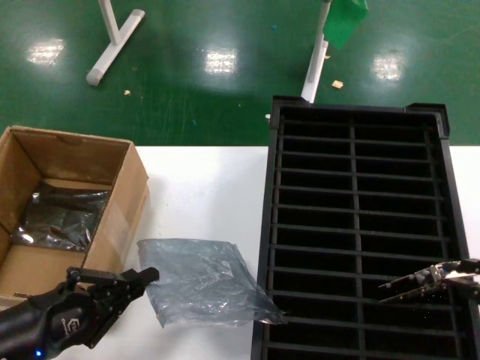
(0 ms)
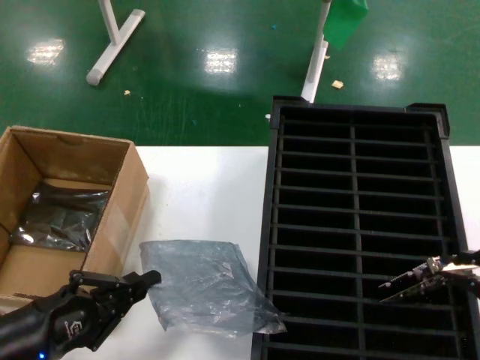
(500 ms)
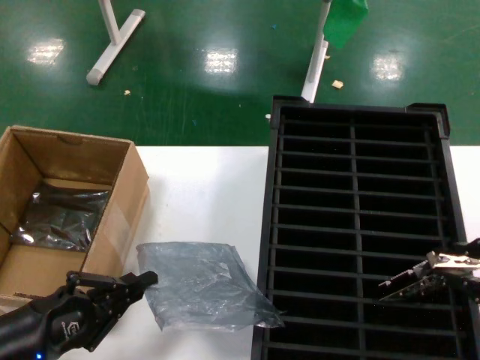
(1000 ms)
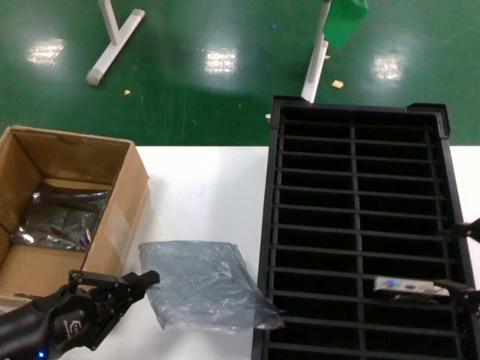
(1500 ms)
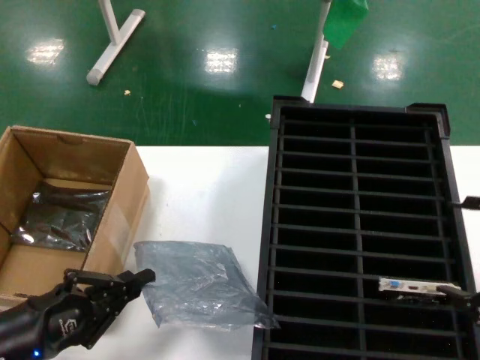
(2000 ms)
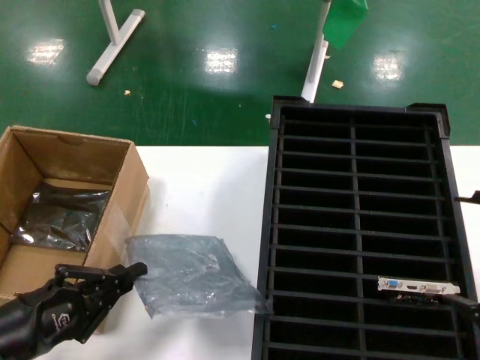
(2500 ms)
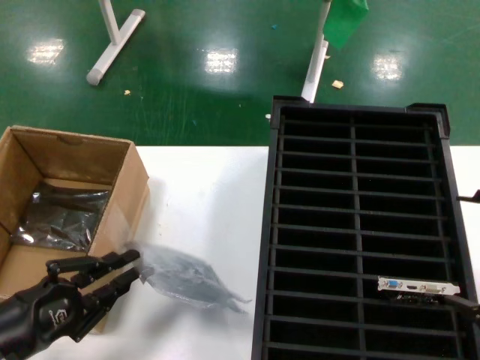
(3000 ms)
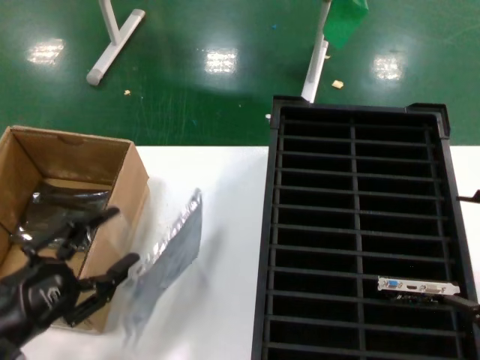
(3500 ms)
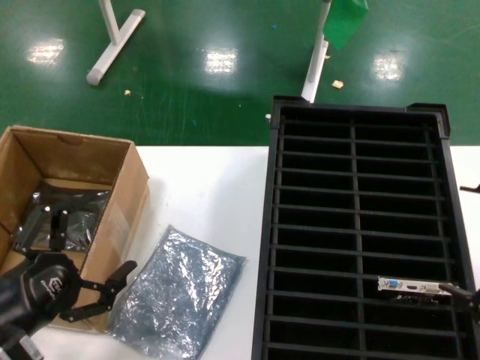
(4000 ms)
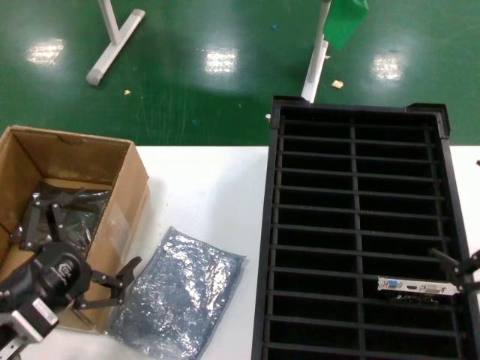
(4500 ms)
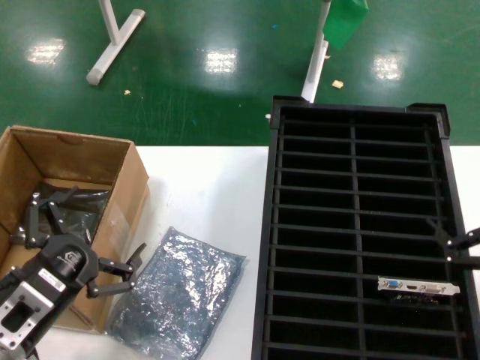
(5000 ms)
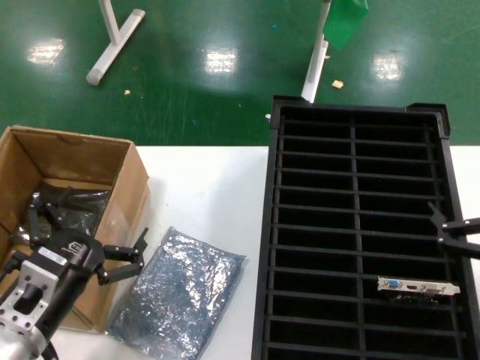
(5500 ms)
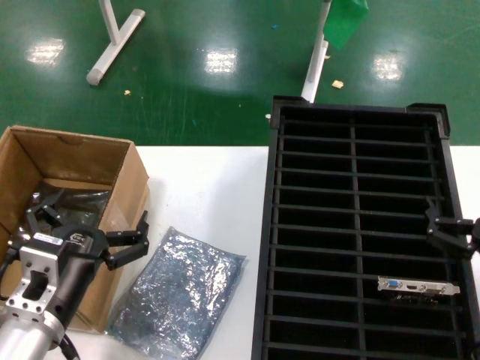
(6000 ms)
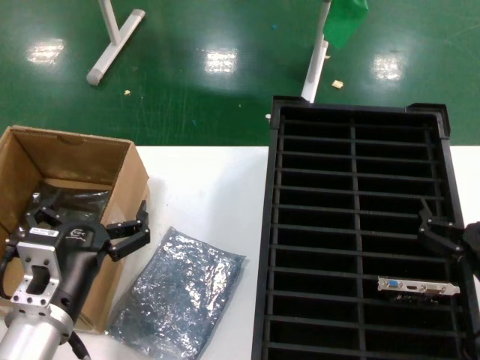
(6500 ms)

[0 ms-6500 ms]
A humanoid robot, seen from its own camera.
Task of the whole recording: take out graphics card from box remove packaging put into black container.
Step, 2000 ms to 3500 ms: Place the down the bag.
0 ms to 2000 ms: The hands stay close to where they were, moving slightly.
4500 ms to 6500 ms: The right hand heads downward and to the left, covering about 15 cm, while the left hand moves to the right, approximately 10 cm.

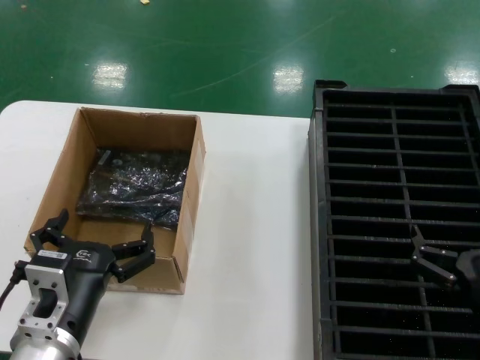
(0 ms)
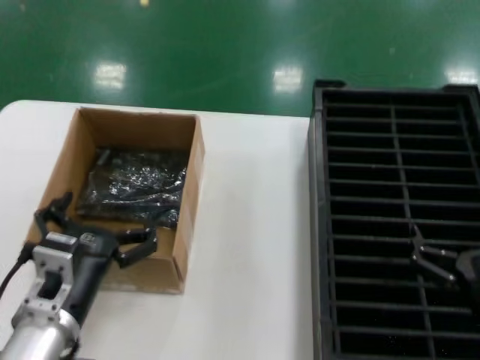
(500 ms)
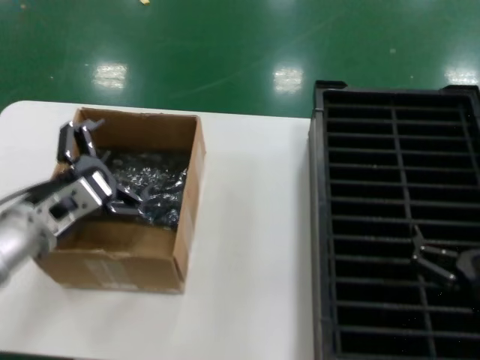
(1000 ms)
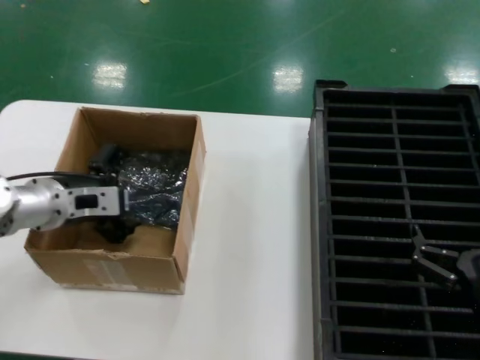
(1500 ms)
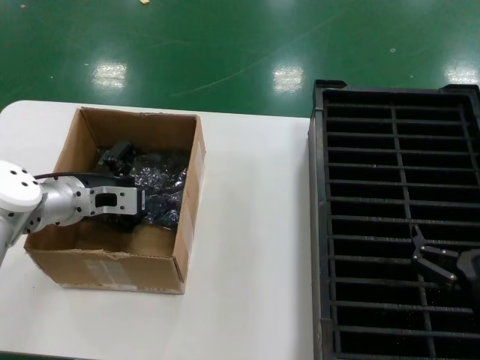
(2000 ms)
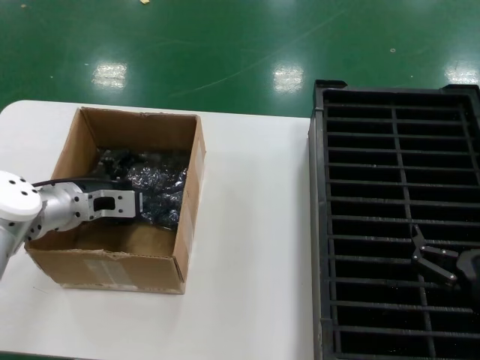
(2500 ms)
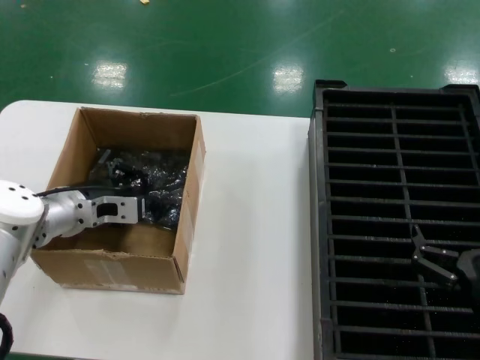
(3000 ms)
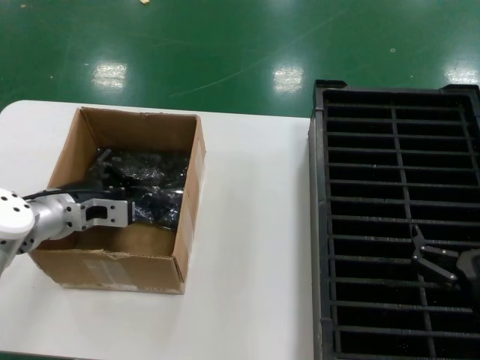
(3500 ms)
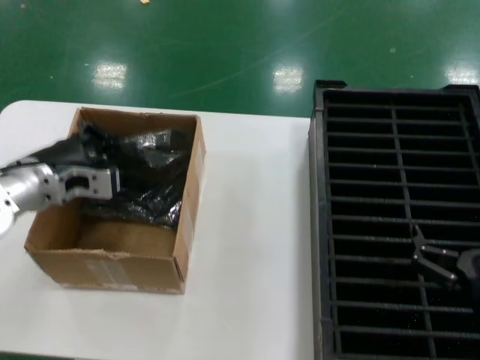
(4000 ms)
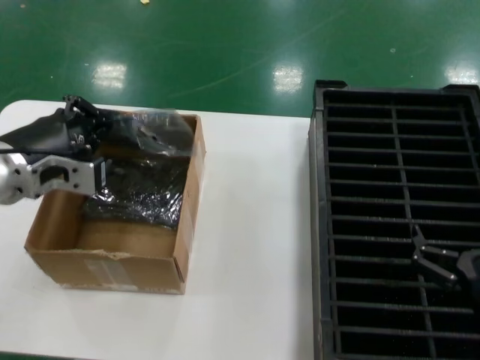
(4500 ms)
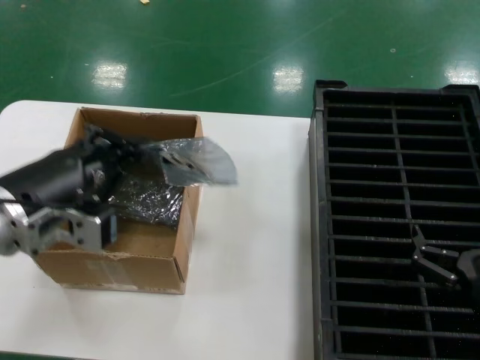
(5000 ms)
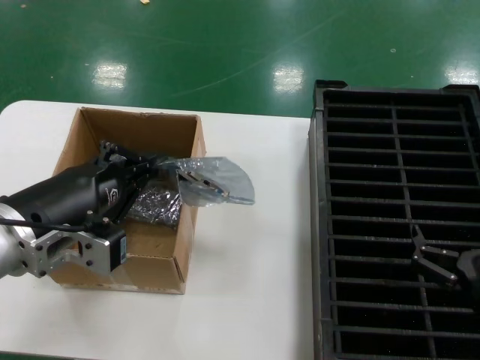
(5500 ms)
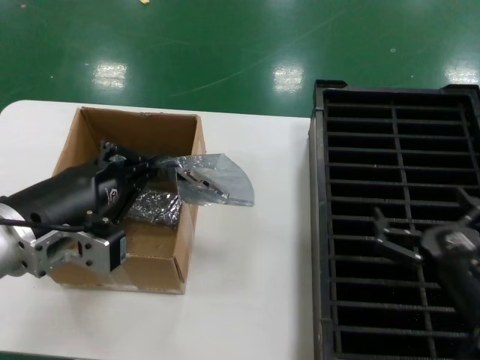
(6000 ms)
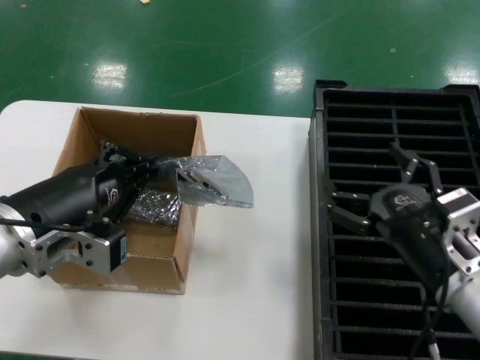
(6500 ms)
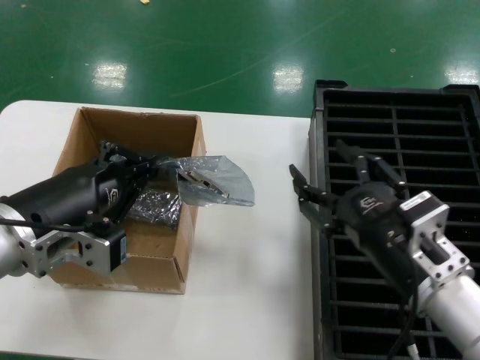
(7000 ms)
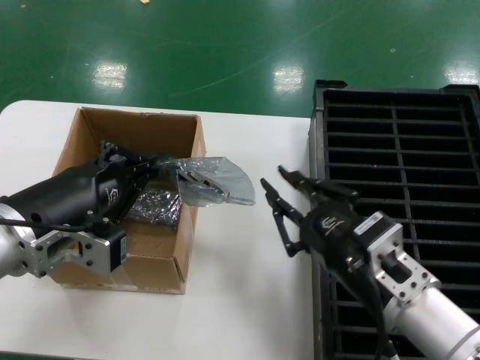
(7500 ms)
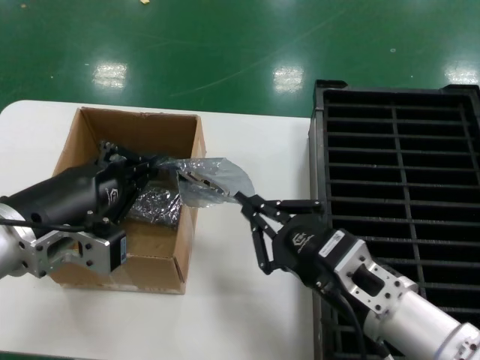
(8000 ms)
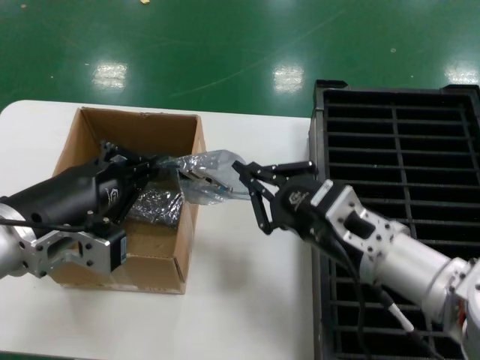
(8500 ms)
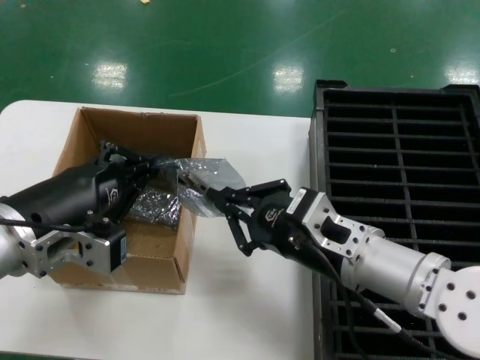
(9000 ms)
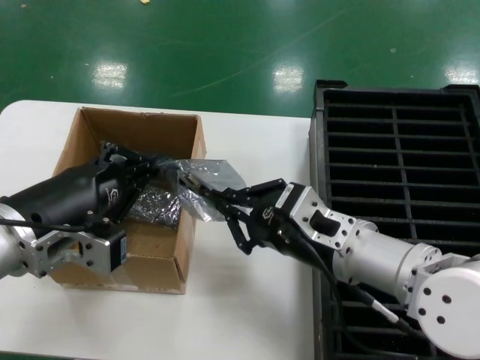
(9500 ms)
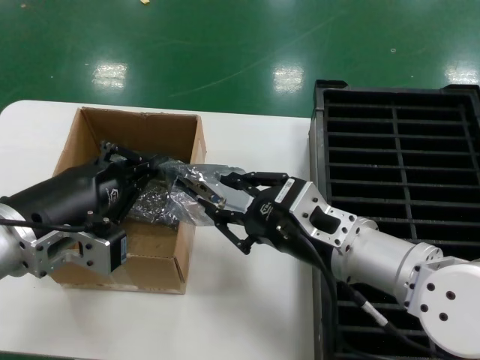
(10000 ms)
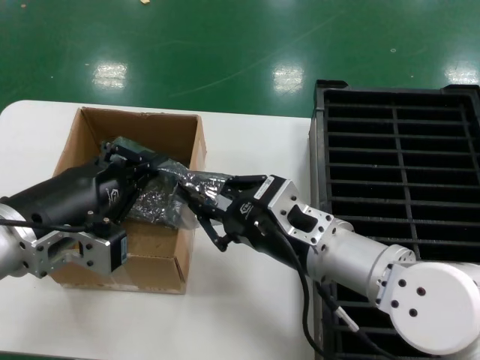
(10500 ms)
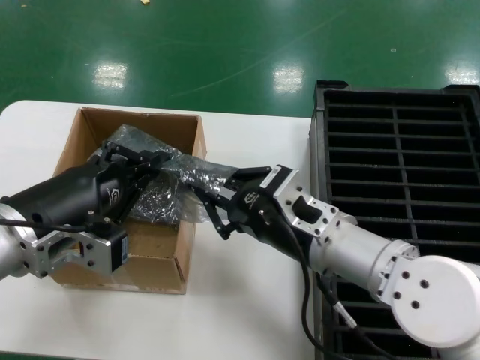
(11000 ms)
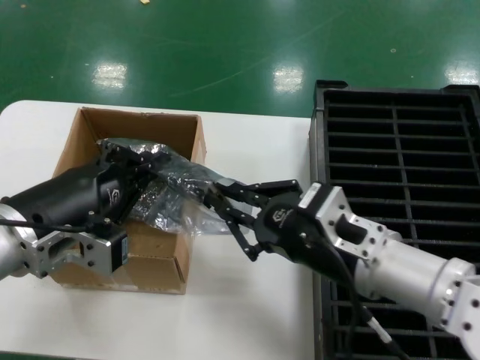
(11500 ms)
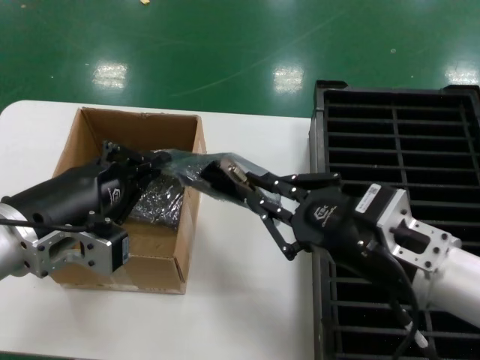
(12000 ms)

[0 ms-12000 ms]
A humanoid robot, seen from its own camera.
Task of the whole recording: take out graphics card from box remove packaging put into black container.
Step, 0 ms to 3000 ms: Grasp the bag.
Step, 3500 ms to 5500 ms: Lift the bag.
0 ms to 2000 ms: The left hand is displaced forward and upward by approximately 25 cm.
2000 ms to 4000 ms: The hands make only small movements.
4000 ms to 6000 ms: The left hand heads backward, covering about 15 cm.
6000 ms to 8000 ms: The right hand heads to the left, covering some 10 cm.
8000 ms to 10000 ms: The right hand shifts approximately 5 cm forward.
10000 ms to 12000 ms: The right hand moves backward and to the right, about 10 cm.

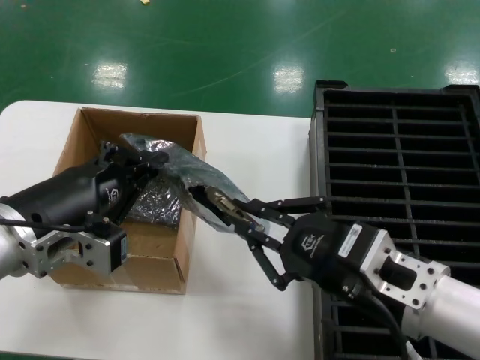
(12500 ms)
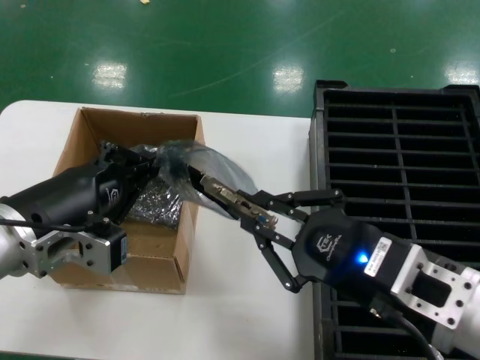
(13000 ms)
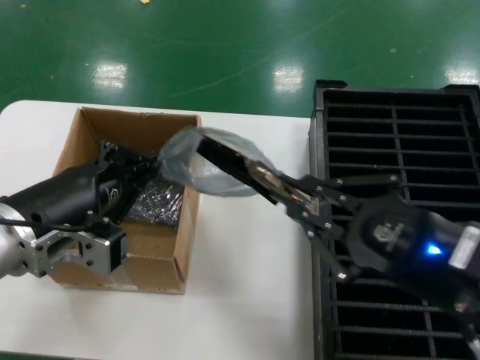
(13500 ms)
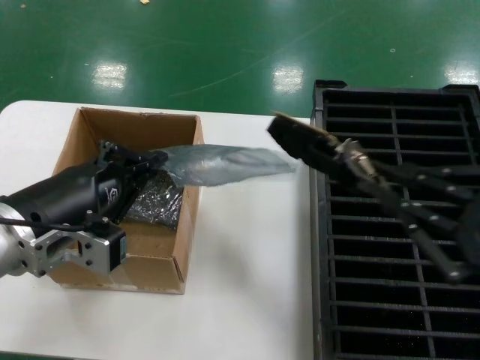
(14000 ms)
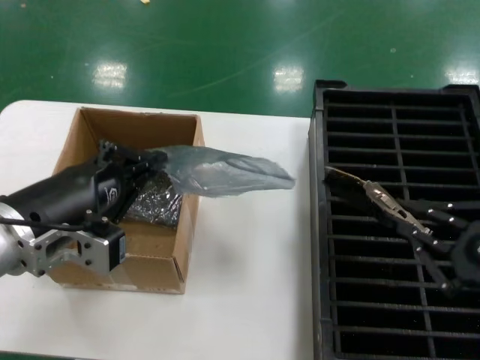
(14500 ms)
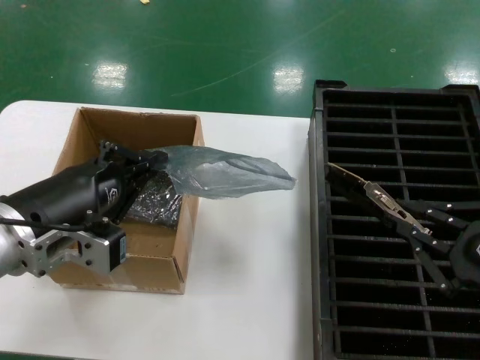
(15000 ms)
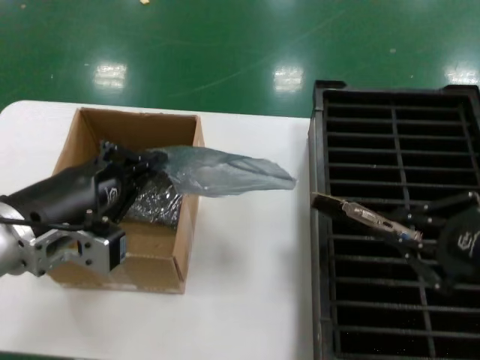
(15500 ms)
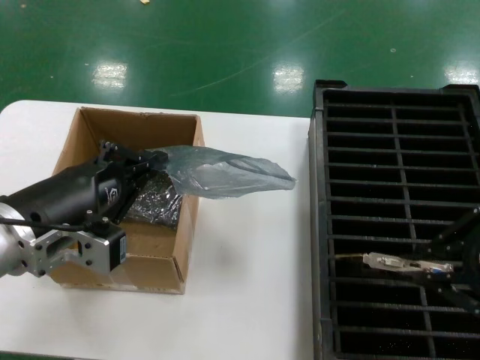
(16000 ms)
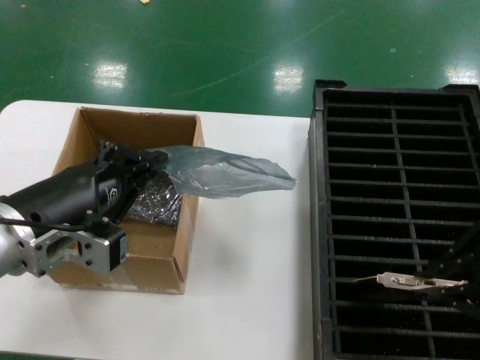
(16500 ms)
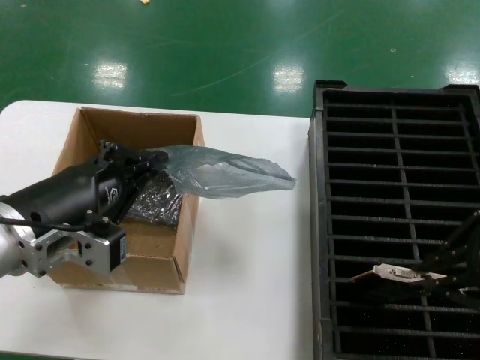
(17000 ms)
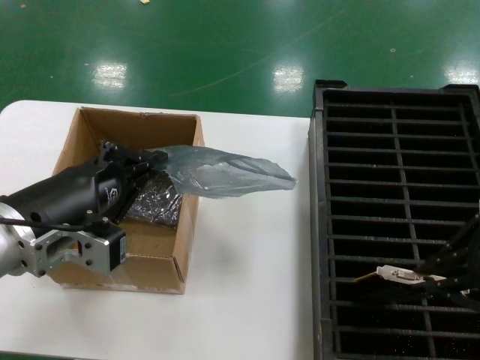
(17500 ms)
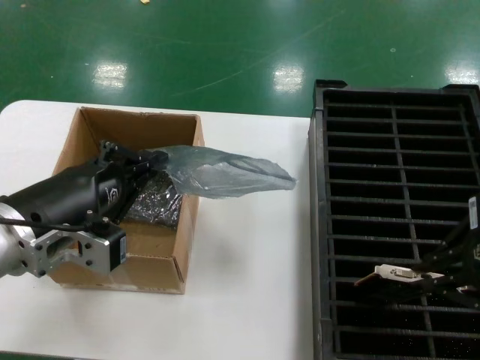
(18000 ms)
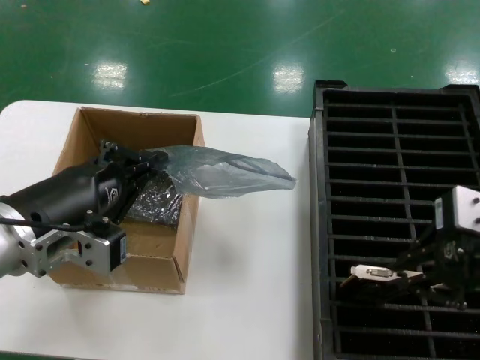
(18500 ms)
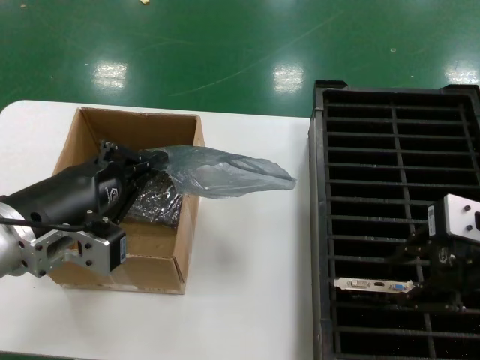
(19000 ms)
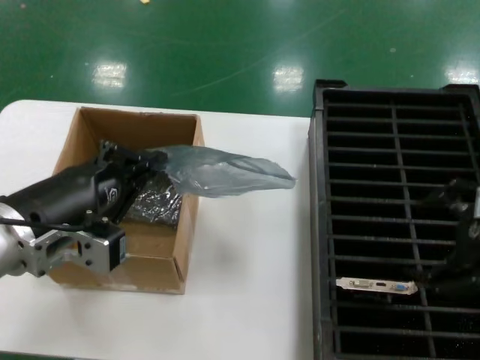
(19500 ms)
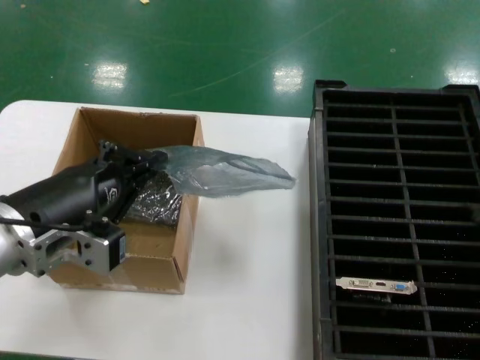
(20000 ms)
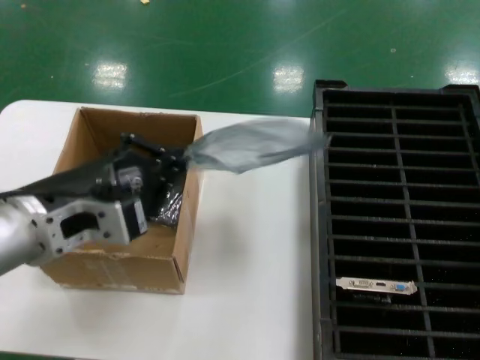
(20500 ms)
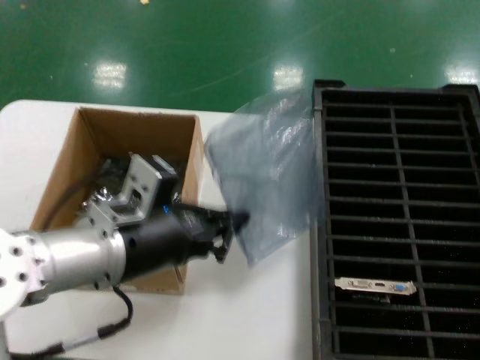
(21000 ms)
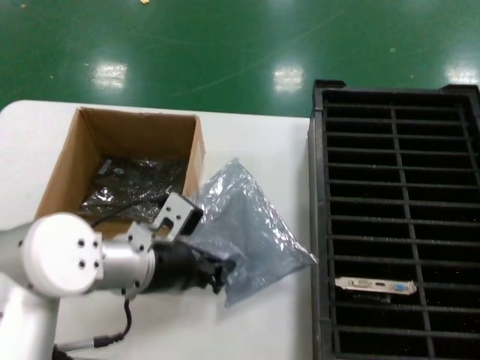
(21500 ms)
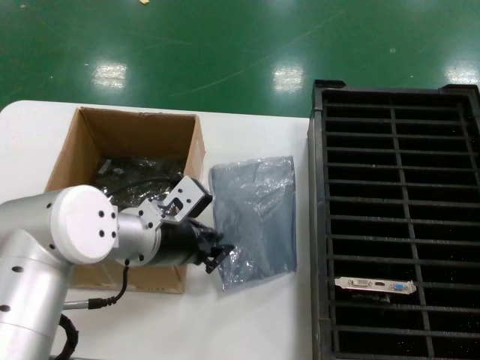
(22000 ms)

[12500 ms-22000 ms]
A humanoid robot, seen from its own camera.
Task of the whole recording: take out graphics card from box remove packaging put into black container.
Step, 14500 ms to 19500 ms: Place the hard disk in the hard disk enclosure.
12500 ms to 14500 ms: The right hand is displaced to the right and backward by about 15 cm.
14500 ms to 16500 ms: The right hand travels upward and forward by roughly 10 cm.
16500 ms to 18000 ms: The hands move only a little.
18000 ms to 20000 ms: The right hand heads to the right and downward, covering about 10 cm.
20000 ms to 22000 ms: The left hand goes roughly 15 cm forward and to the right.
